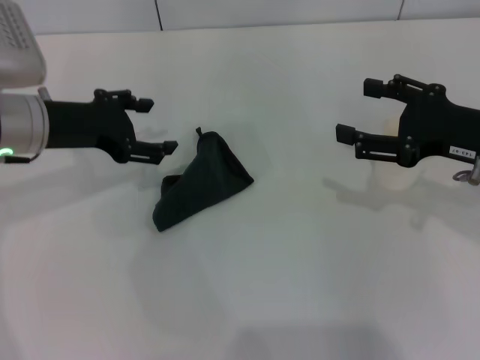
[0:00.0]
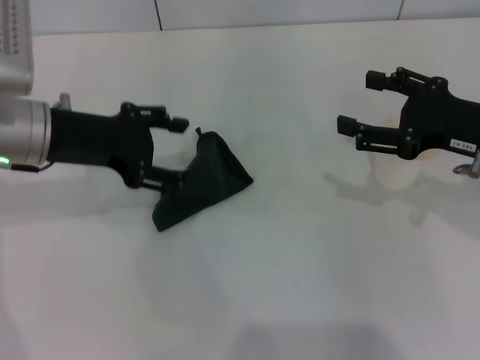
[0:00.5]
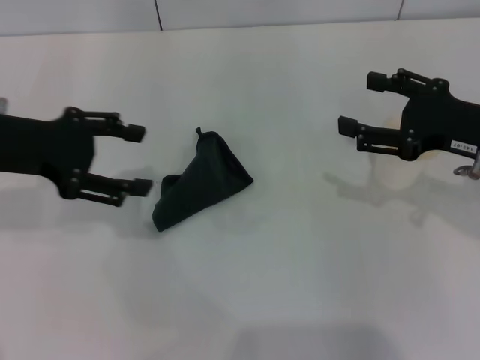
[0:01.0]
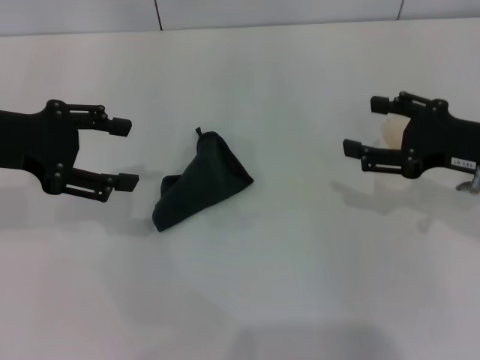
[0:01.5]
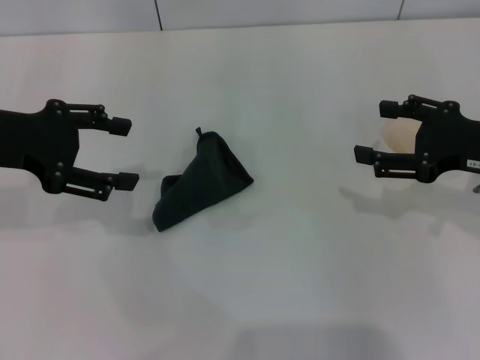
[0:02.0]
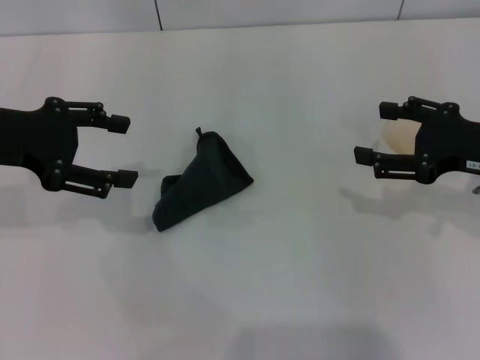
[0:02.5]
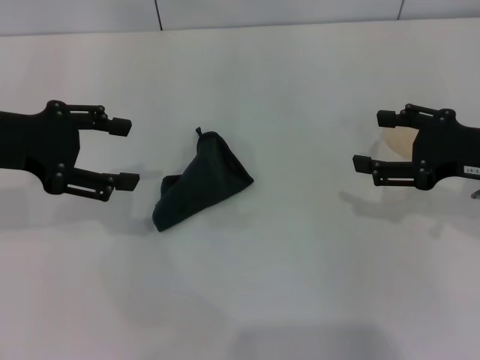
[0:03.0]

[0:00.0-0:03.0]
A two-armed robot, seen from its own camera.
0:00.0 to 0:01.5: The left gripper goes approximately 5 cm upward and to the left.
0:01.5 to 0:03.0: The grippers make only small movements.

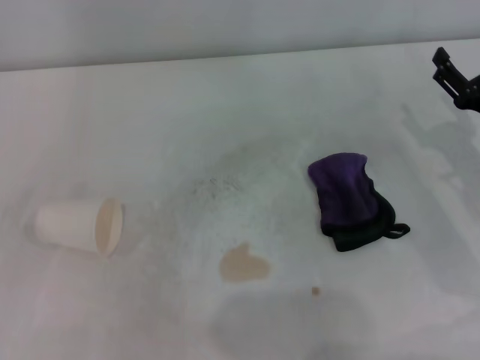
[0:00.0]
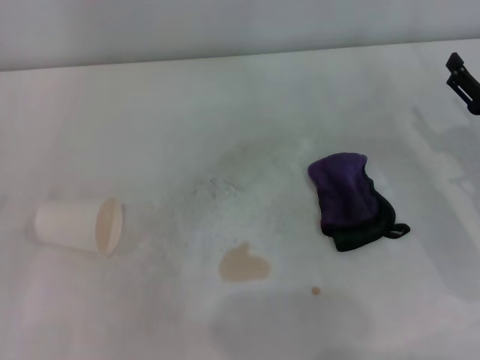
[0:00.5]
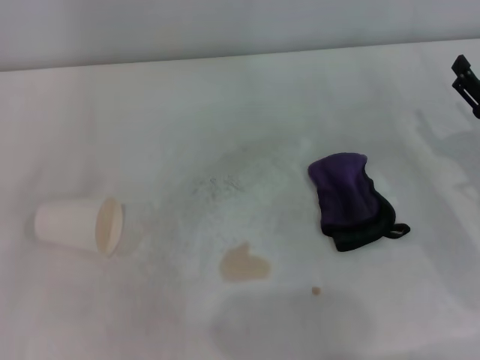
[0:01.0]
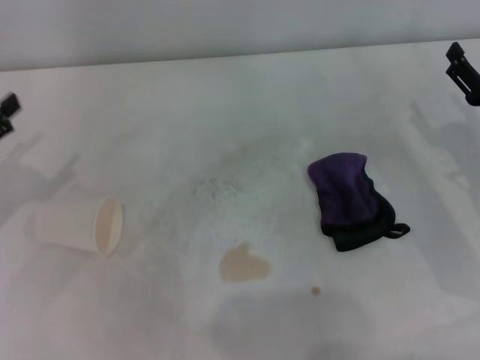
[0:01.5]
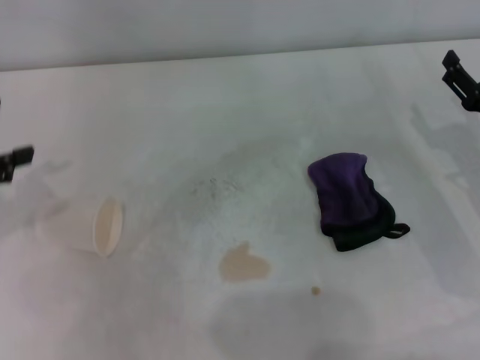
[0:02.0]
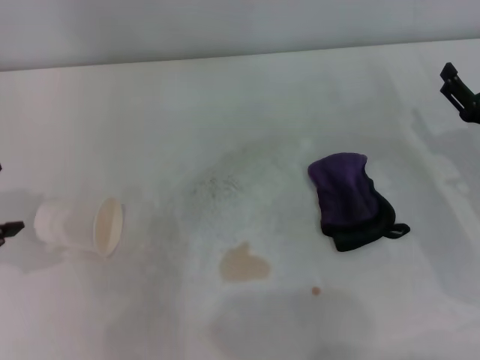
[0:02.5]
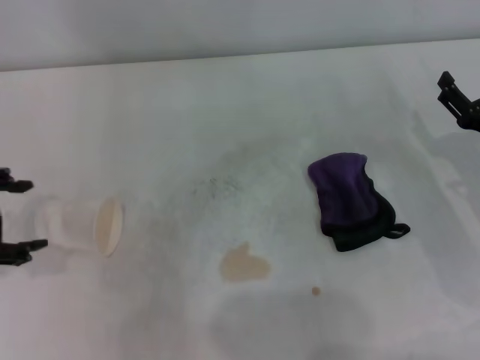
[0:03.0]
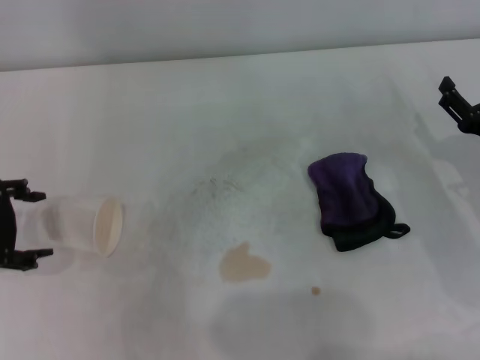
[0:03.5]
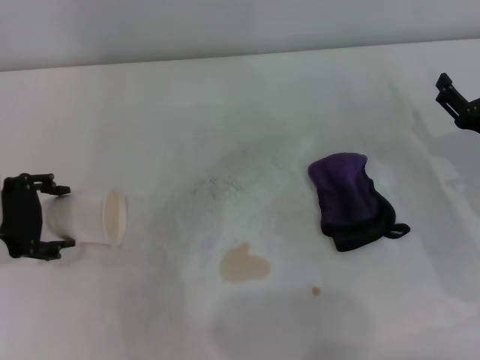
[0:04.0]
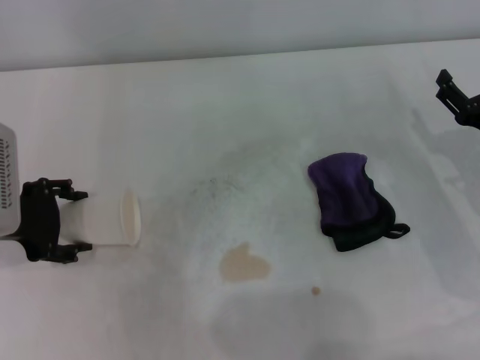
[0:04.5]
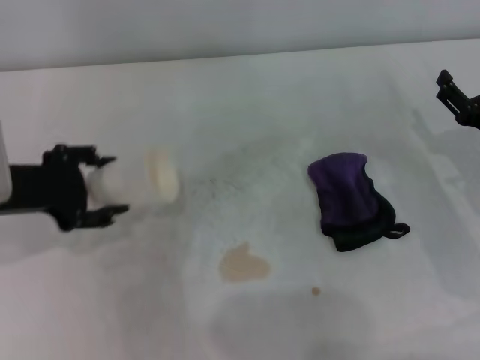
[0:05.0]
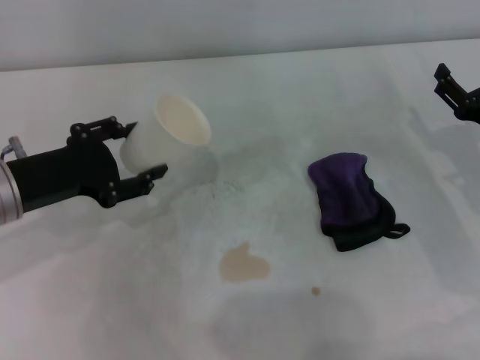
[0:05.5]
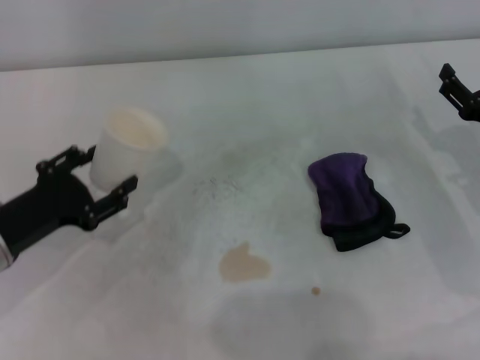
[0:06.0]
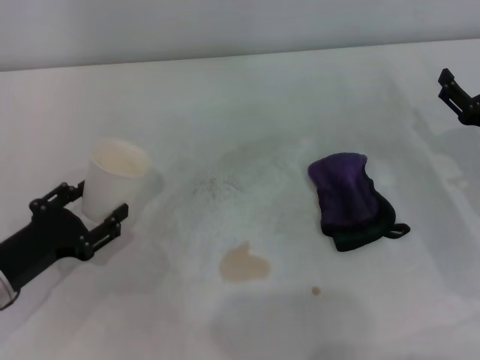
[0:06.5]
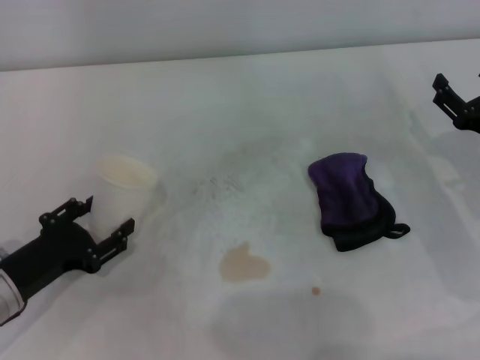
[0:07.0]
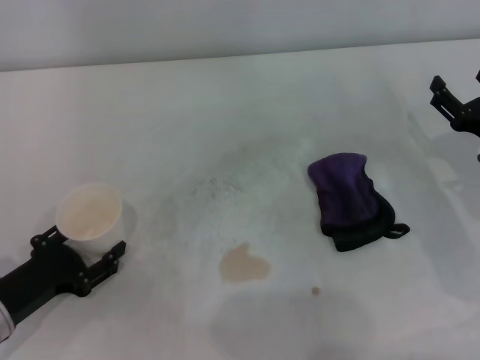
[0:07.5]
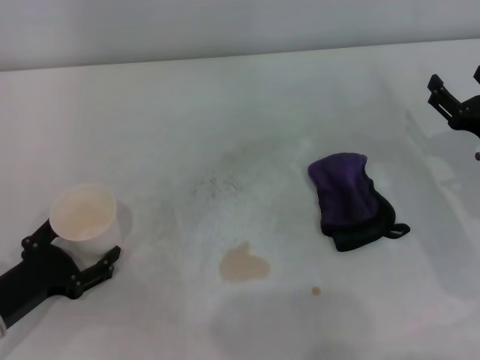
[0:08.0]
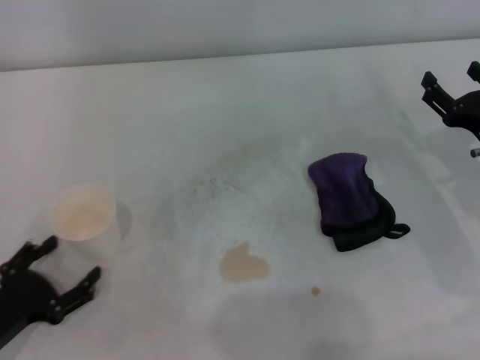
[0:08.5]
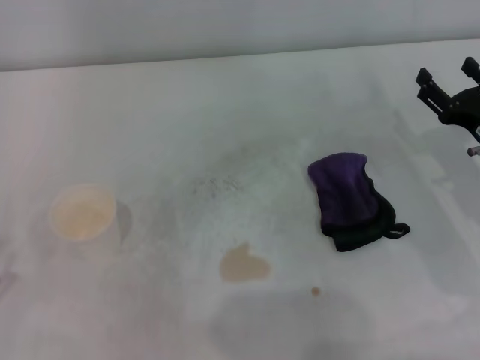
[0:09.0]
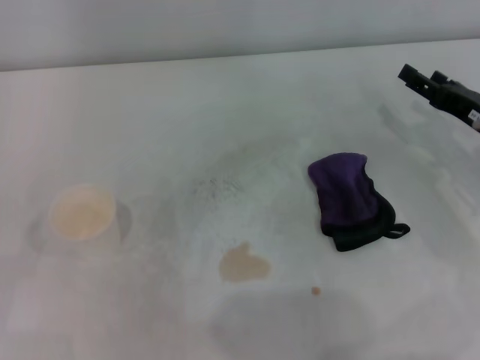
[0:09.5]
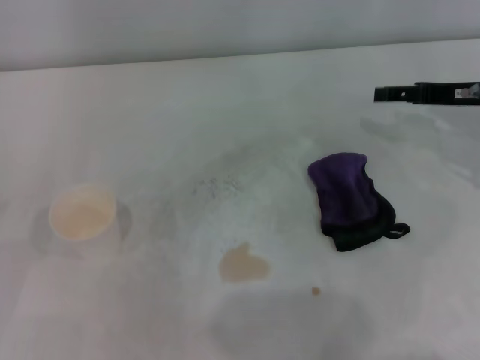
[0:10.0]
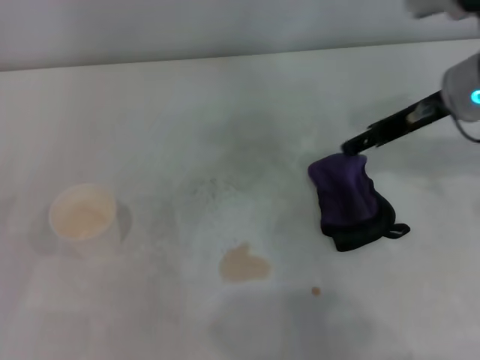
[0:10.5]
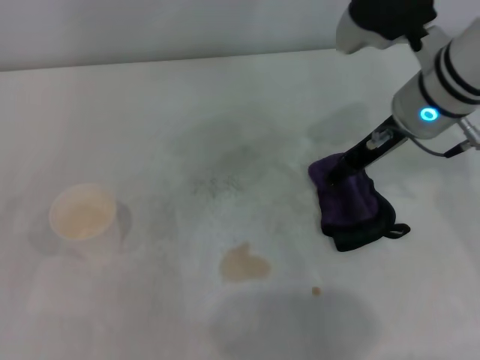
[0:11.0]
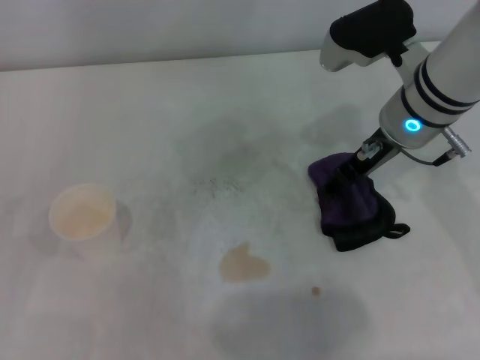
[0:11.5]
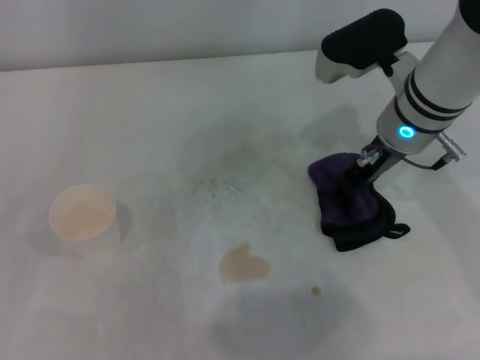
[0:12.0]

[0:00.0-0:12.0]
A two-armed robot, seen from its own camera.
Step, 0:00.0 to 0:04.5: Grasp the paper cup with the left gripper.
Step, 0:05.0 to 0:07.5: Stand the paper cup upright with the left gripper.
0:02.0 to 0:04.0: The left gripper heads downward and to the right, covering about 10 cm.
0:04.0 to 0:06.0: The left gripper moves downward, some 5 cm, and closes its fingers.
0:06.0 to 0:08.0: The left gripper is displaced backward and downward by approximately 10 cm, and opens its fingers.
0:08.0 to 0:10.0: The left gripper moves to the left, some 10 cm; the right gripper shifts some 10 cm upward and forward.
0:10.0 to 0:12.0: The right gripper is displaced to the left by roughly 15 cm.

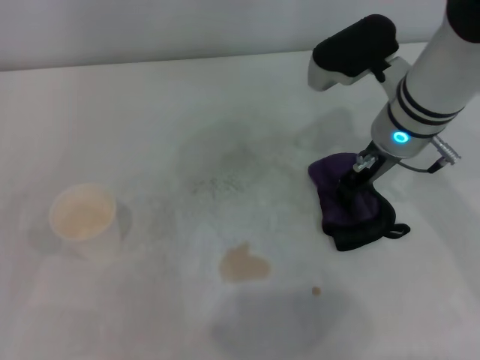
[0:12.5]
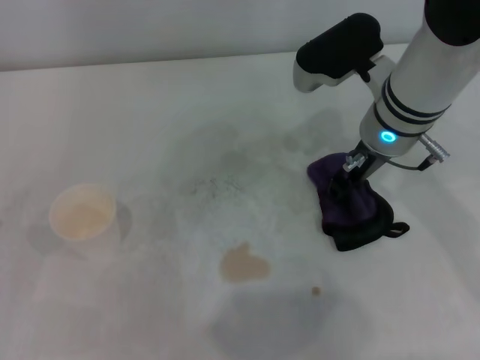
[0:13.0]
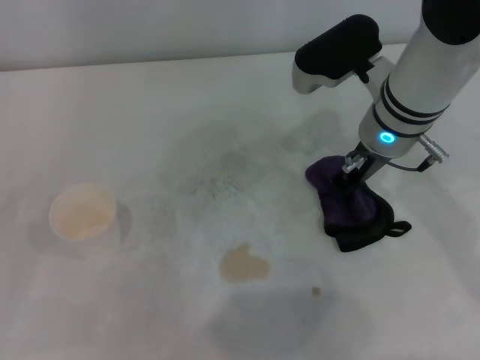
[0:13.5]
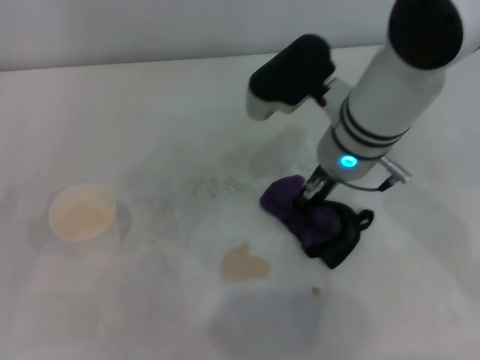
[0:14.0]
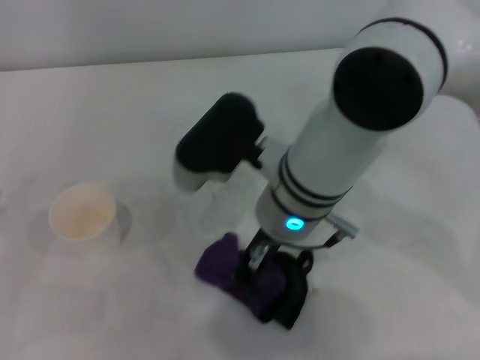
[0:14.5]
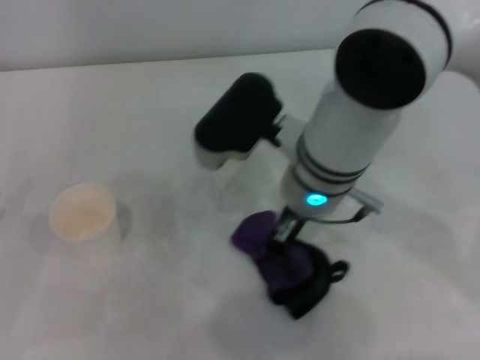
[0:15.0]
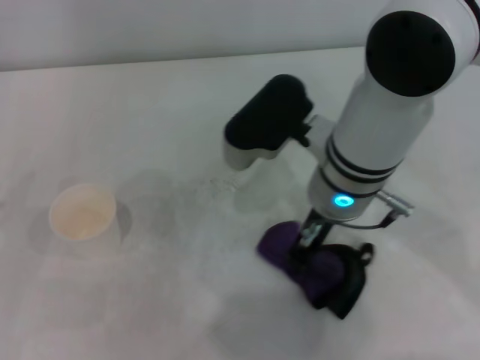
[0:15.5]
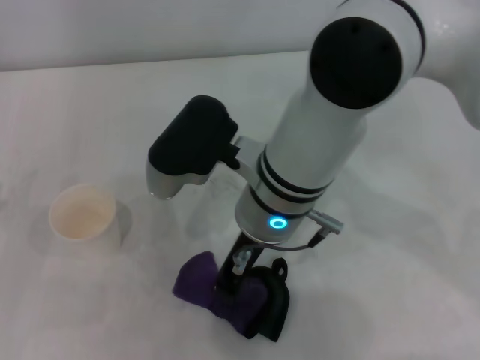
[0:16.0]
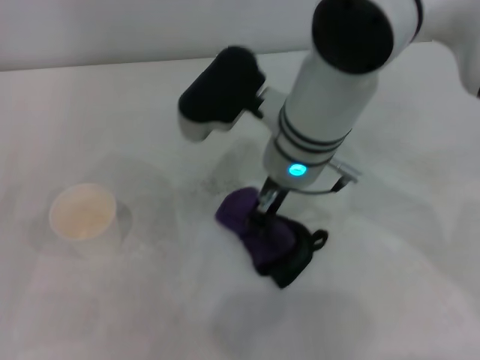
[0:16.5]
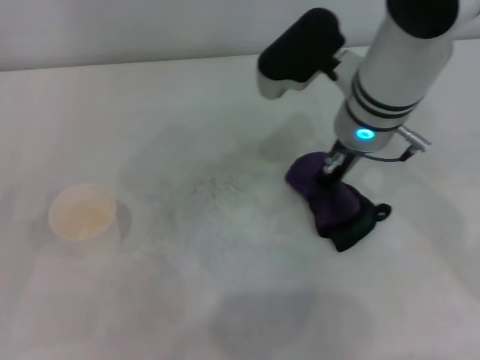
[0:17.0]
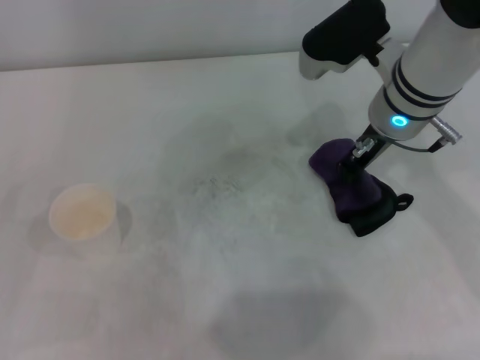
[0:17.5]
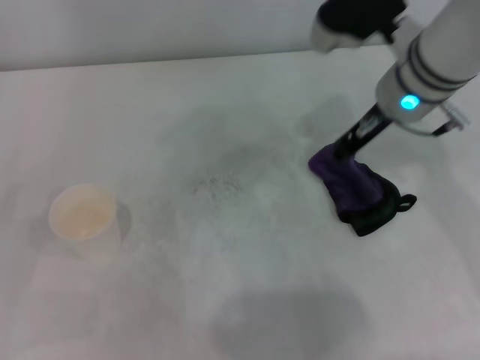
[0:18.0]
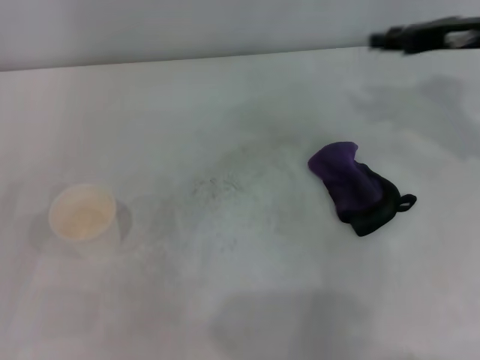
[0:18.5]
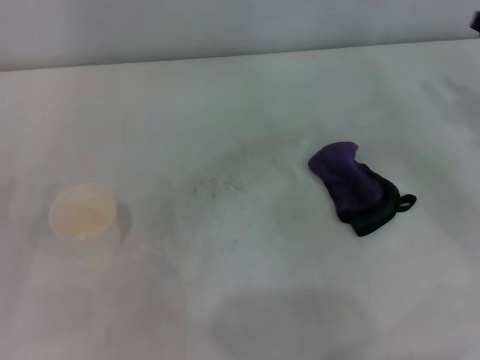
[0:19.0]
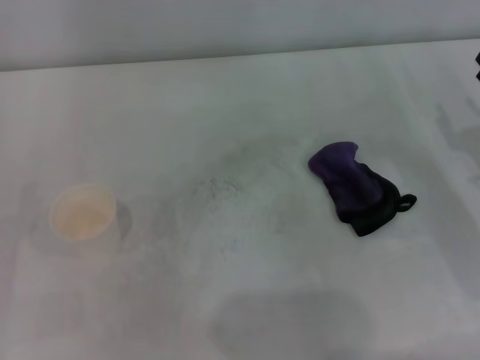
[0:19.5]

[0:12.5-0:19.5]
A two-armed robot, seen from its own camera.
Step, 0:13.5 to 0:16.5: Wipe the stains off the table with the right gripper.
Step, 0:17.0 to 0:17.5: Place the rag on the table with the right gripper.
0:12.5 to 0:14.5: The right gripper goes about 15 cm to the left and backward, and closes up.
0:16.0 to 0:17.5: The right gripper shifts some 15 cm to the right and forward.
0:17.5 to 0:19.5: The right gripper heads to the right, backward and downward, covering some 25 cm.
